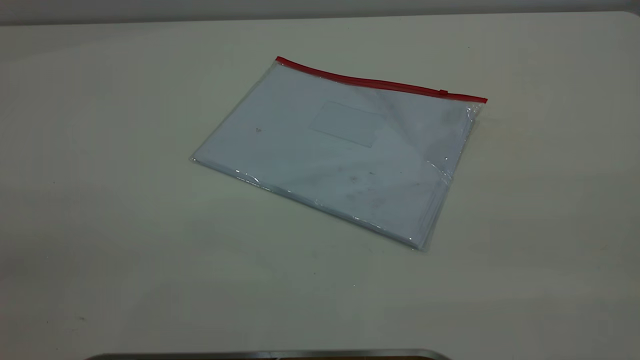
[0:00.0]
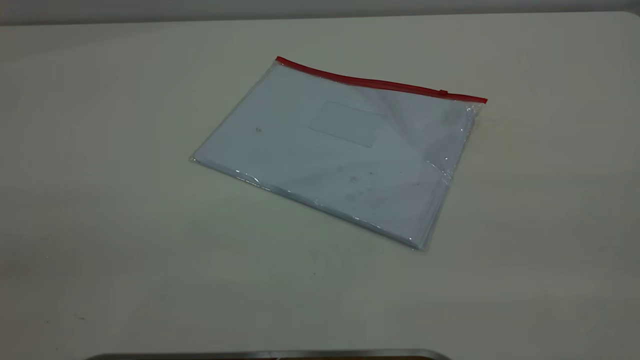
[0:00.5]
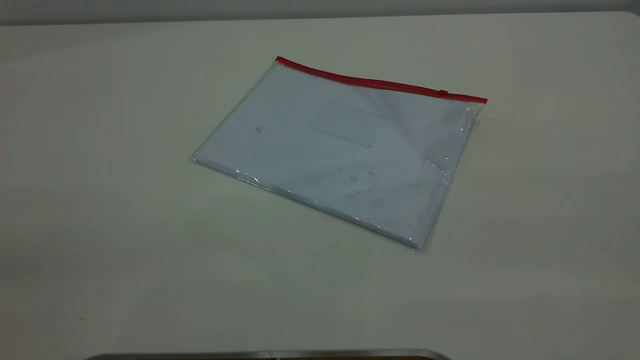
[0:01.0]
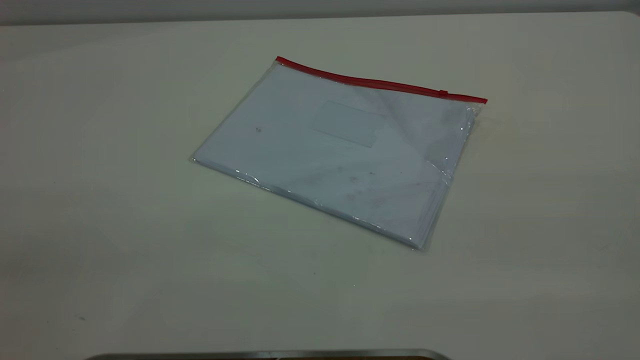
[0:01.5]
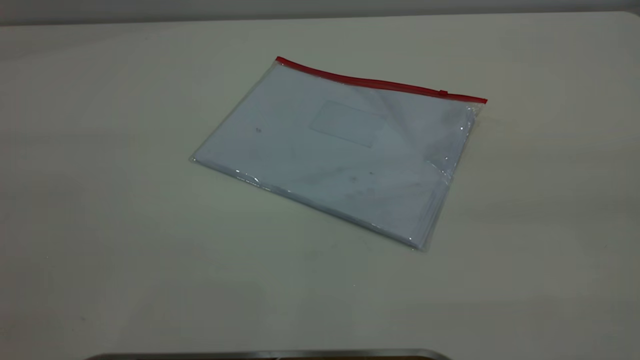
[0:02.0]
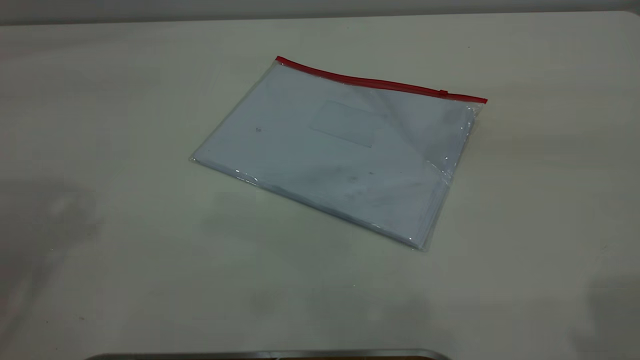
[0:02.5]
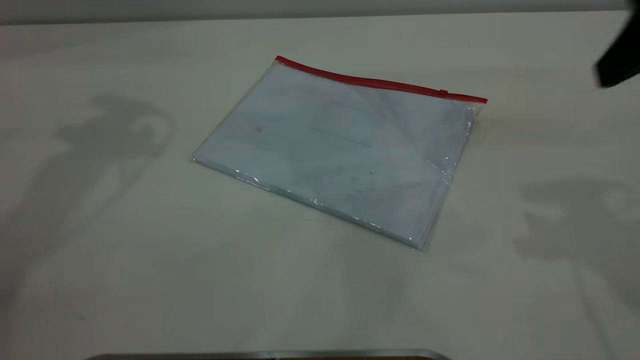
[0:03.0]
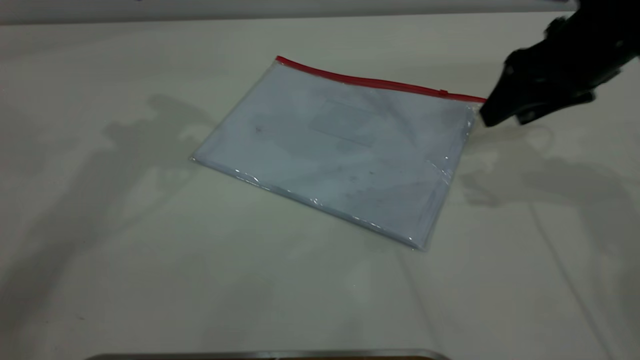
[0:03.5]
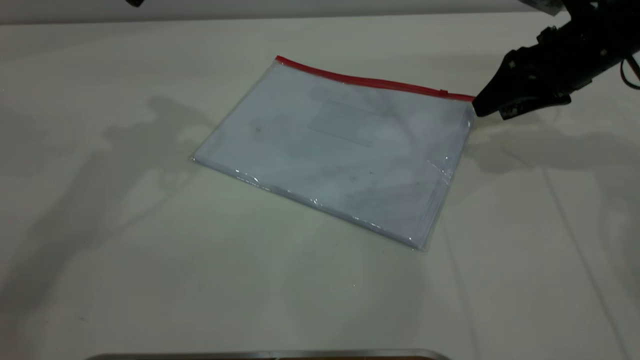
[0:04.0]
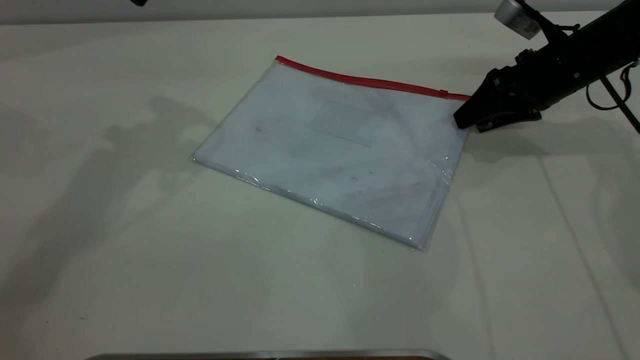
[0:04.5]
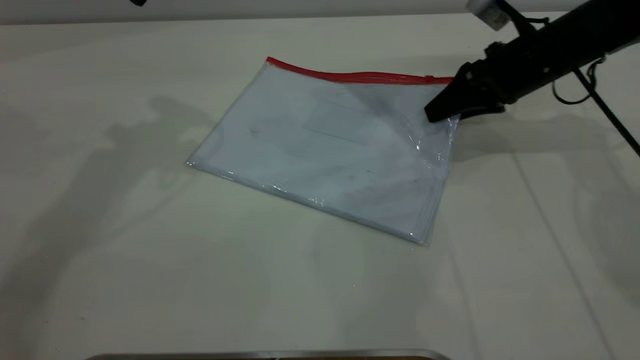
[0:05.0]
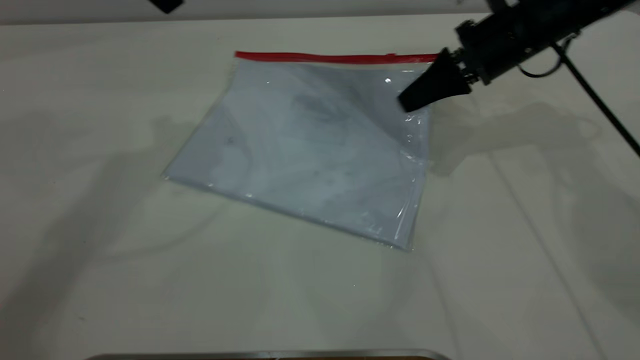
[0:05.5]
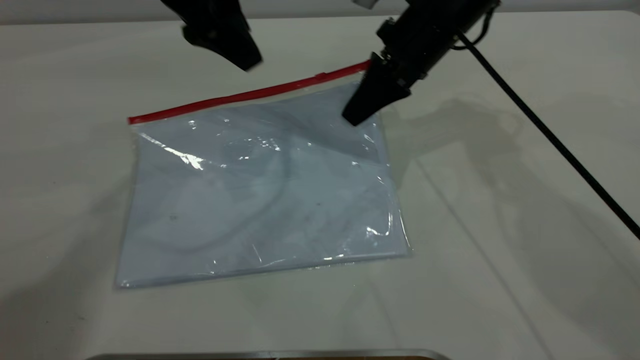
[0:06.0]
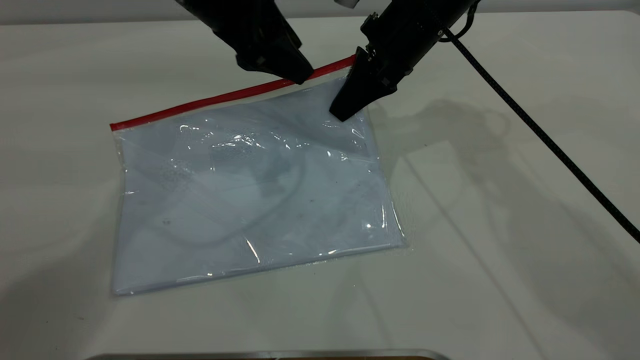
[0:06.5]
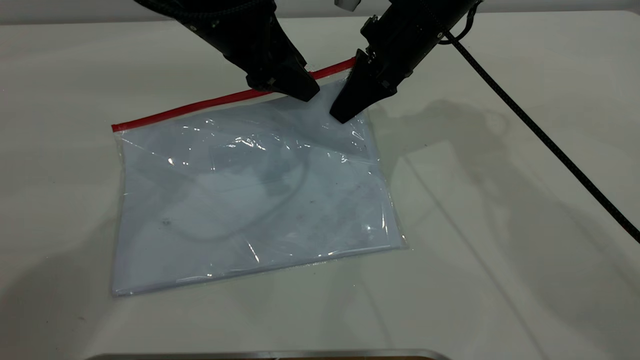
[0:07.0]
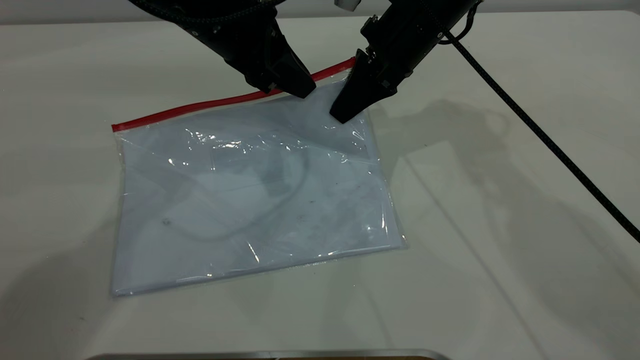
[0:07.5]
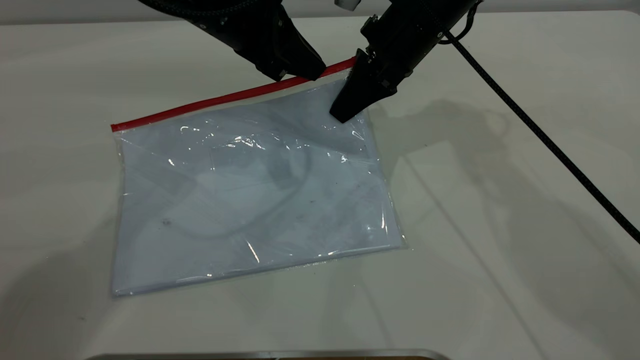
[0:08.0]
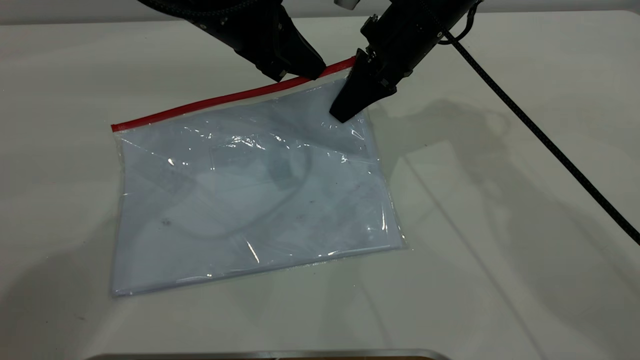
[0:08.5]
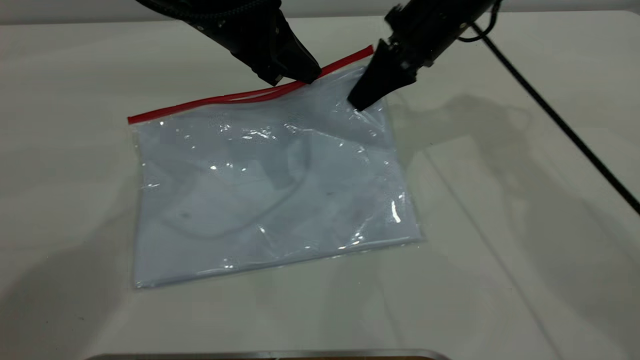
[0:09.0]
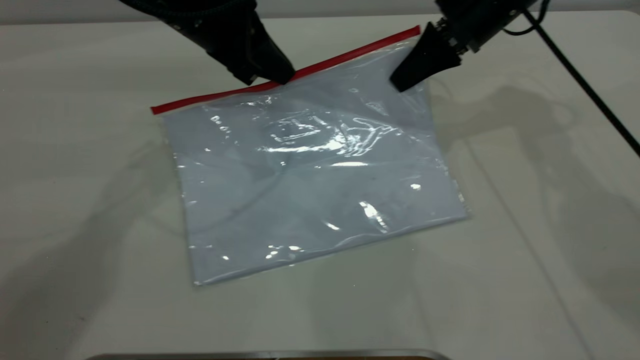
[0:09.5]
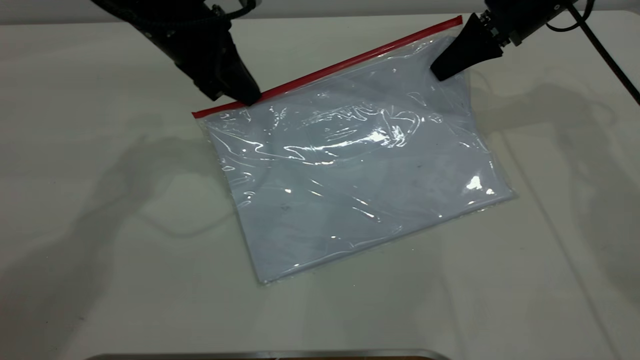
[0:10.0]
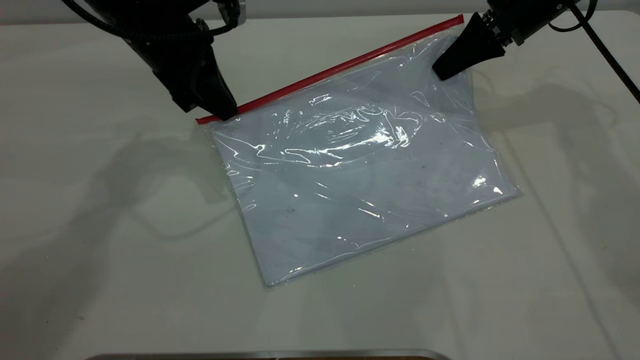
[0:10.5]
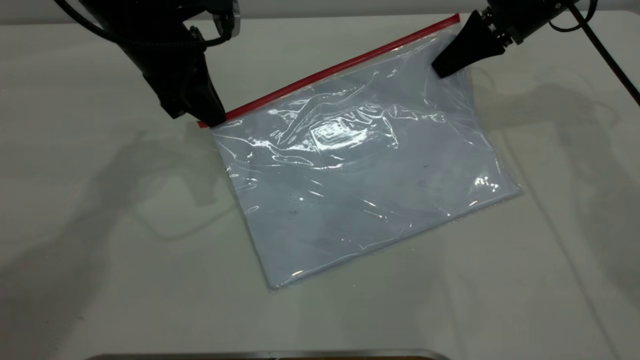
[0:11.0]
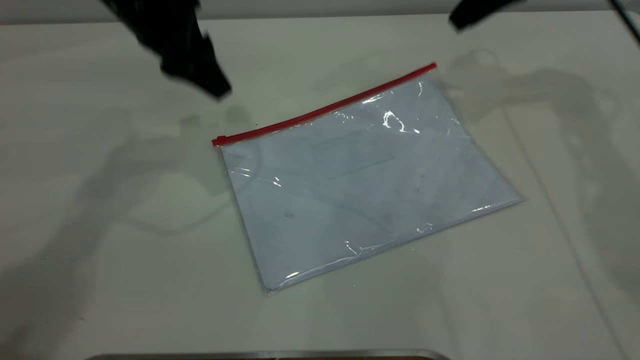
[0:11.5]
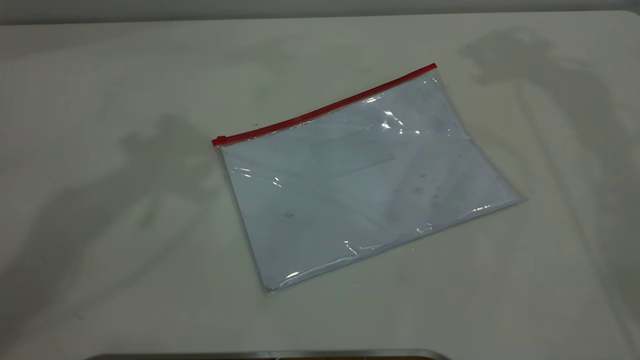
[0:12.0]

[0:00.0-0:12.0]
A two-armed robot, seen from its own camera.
Step, 0:00.0 to 0:05.5: Pick up the transparent plastic bag with the right gripper.
Step, 0:06.0 to 0:11.0: Pulling up the zipper on the transparent plastic bag with the left gripper to close it.
0:02.0 to 0:04.0: The right gripper goes about 50 cm forward and downward.
0:04.0 to 0:06.0: The left gripper moves to the right and downward, approximately 10 cm. The right gripper moves to the left, approximately 15 cm, and closes.
0:06.0 to 0:08.0: The left gripper is displaced downward by approximately 5 cm, and closes its fingers.
0:08.0 to 0:10.0: The right gripper travels to the right by approximately 15 cm.
0:10.0 to 0:12.0: Both grippers move upward, approximately 30 cm. The left gripper opens its fingers. Meanwhile the right gripper opens.
